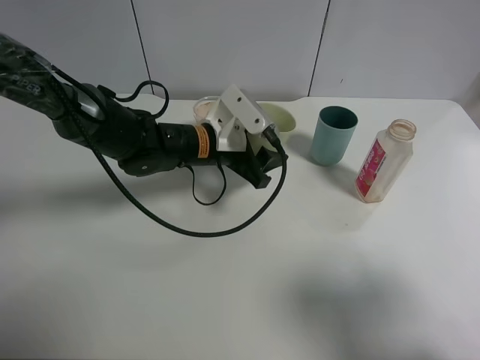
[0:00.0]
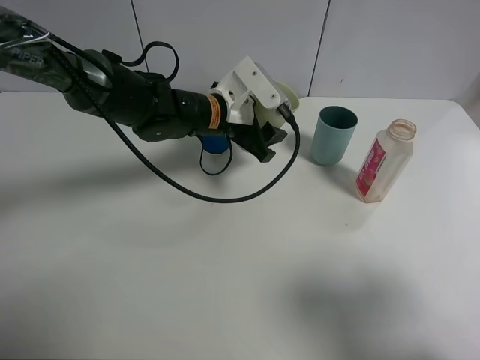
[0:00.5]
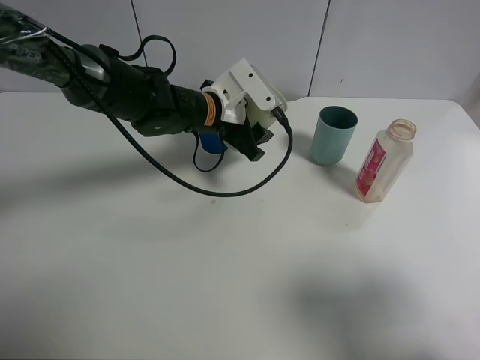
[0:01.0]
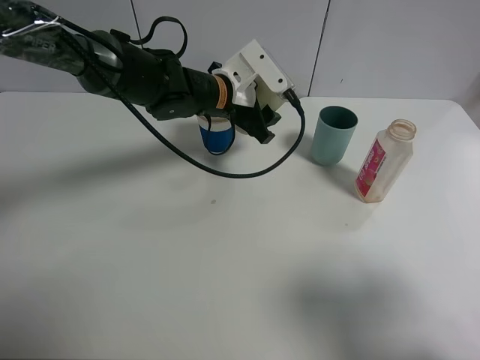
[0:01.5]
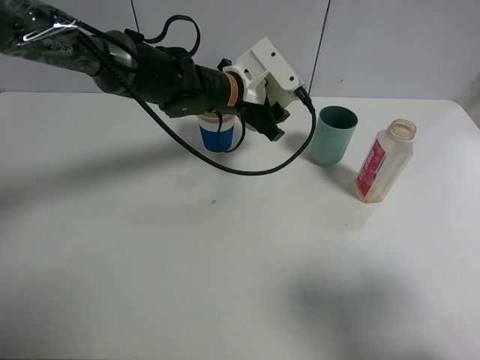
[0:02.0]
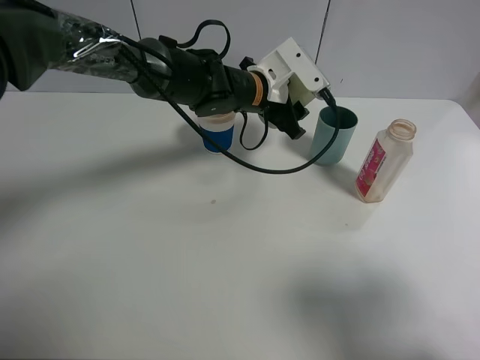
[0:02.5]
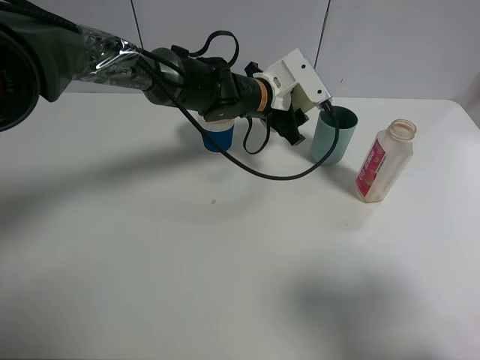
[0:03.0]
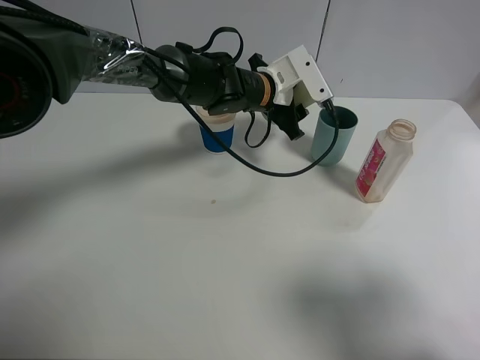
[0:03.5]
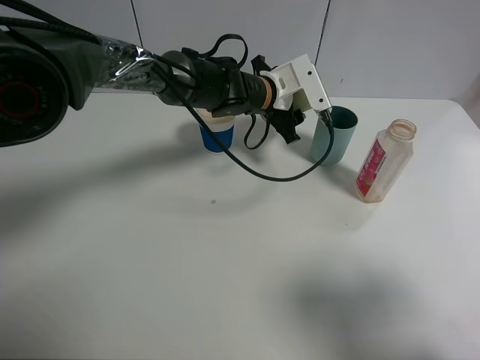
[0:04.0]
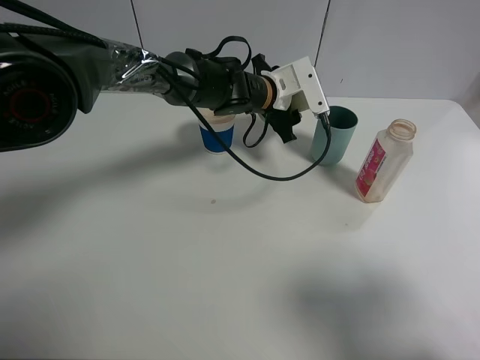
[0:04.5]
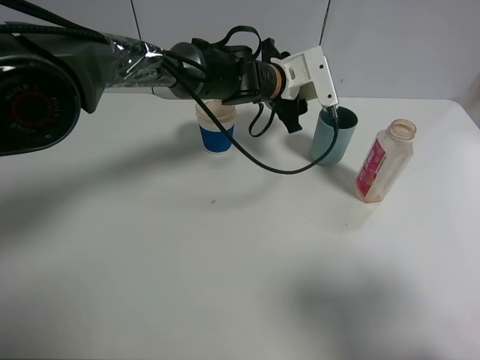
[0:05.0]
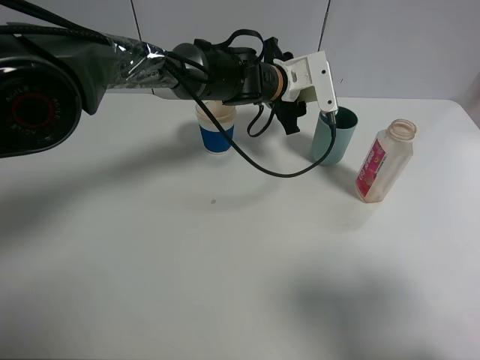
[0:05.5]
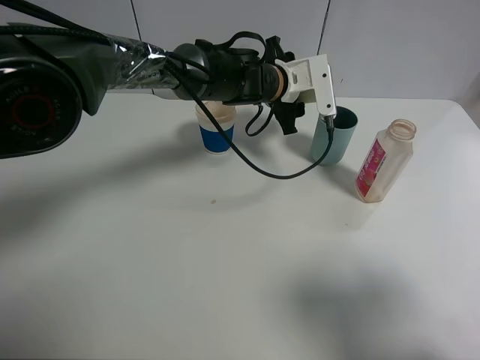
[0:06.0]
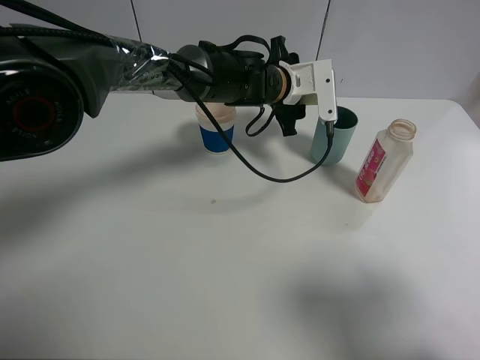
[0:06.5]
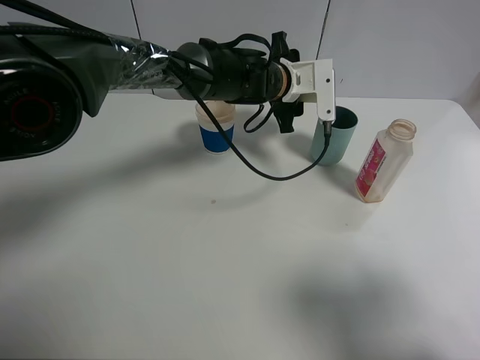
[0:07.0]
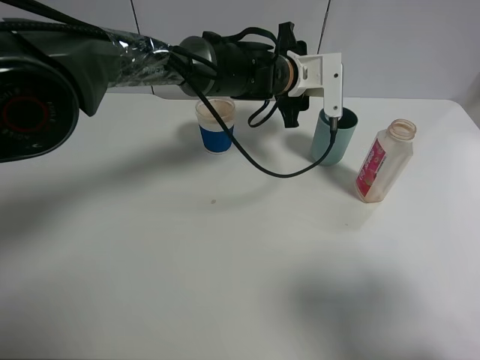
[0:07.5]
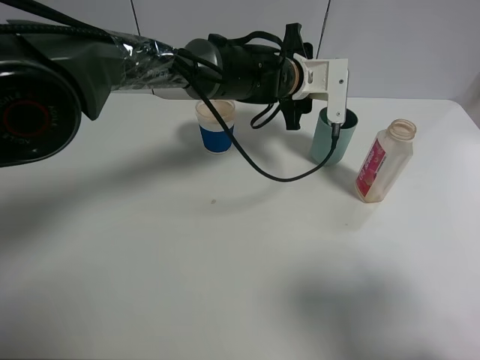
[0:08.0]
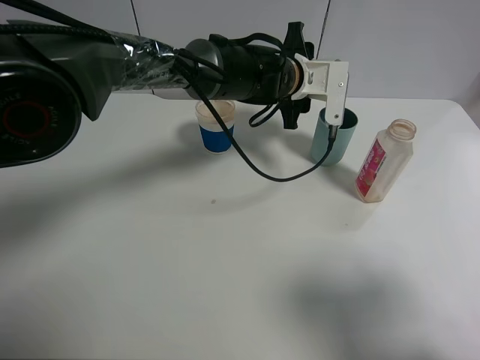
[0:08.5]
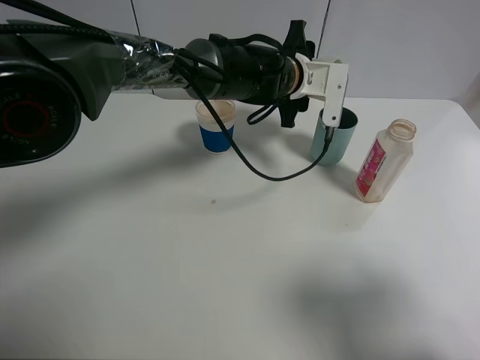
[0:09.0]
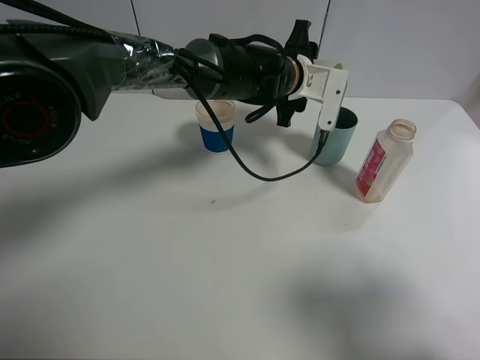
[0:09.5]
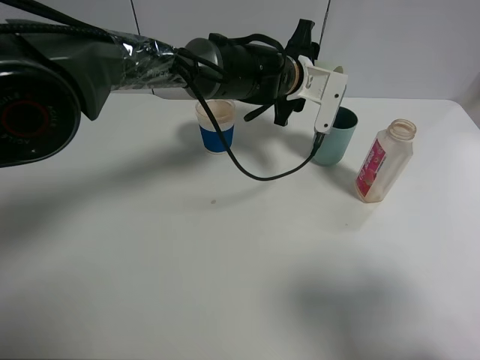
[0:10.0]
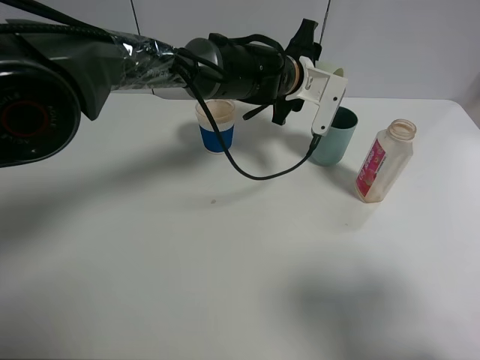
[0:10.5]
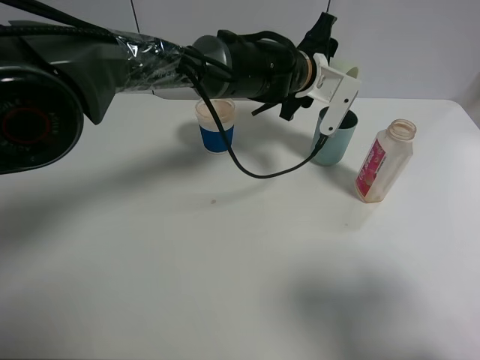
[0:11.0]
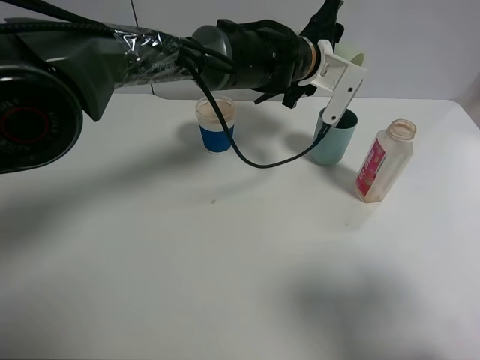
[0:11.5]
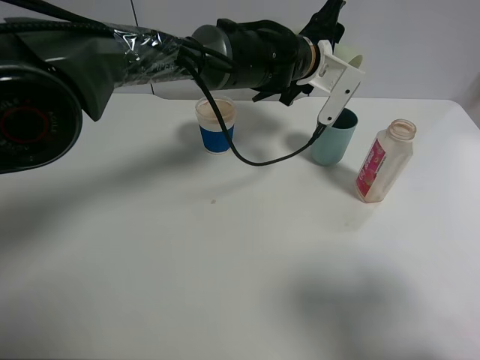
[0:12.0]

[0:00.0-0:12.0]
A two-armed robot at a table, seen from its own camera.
Task of the whole recording: use a clamp to hold the bottle of the drink, pour the beverage into a random cup, then clamp the cup containing the drink and pour the drink into another random cup.
0:00.0 to 0:02.0: The left gripper goes approximately 5 cm forward.
0:02.0 to 0:04.0: The left gripper moves roughly 5 cm.
0:04.0 to 0:06.0: The grippers stay close to where they were, moving slightly.
0:06.0 to 0:08.0: There are only small adjustments of the grippers.
0:08.0 to 0:10.0: There are only small adjustments of the grippers.
0:10.0 to 0:12.0: The grippers make only small movements.

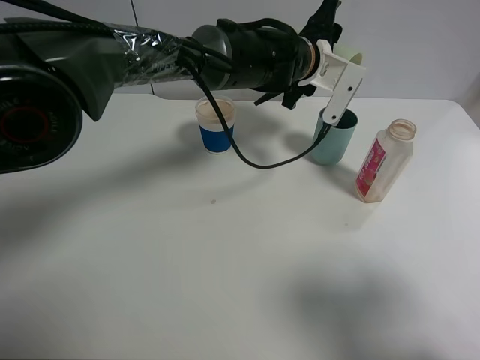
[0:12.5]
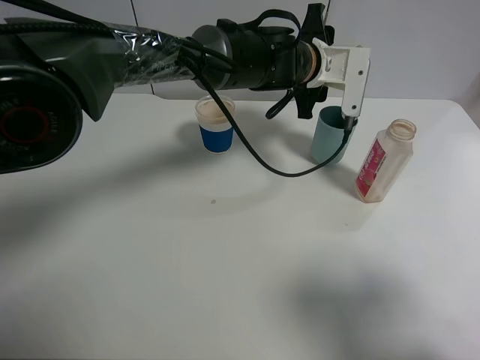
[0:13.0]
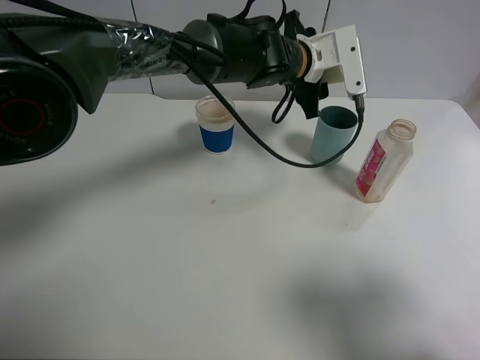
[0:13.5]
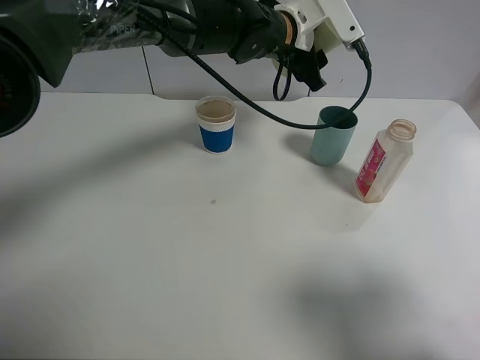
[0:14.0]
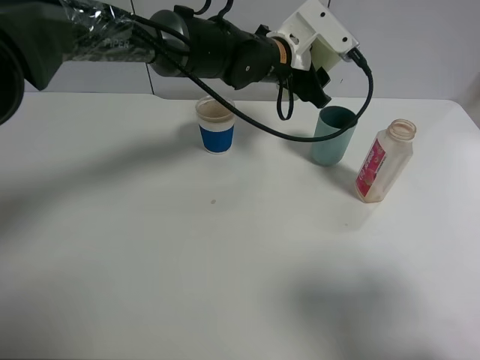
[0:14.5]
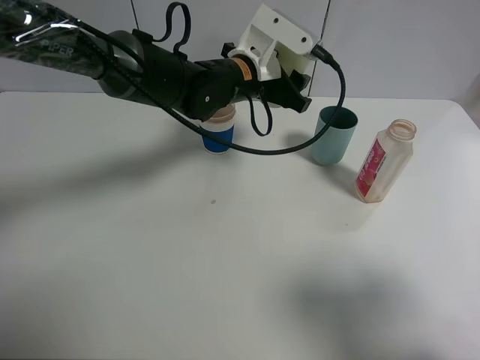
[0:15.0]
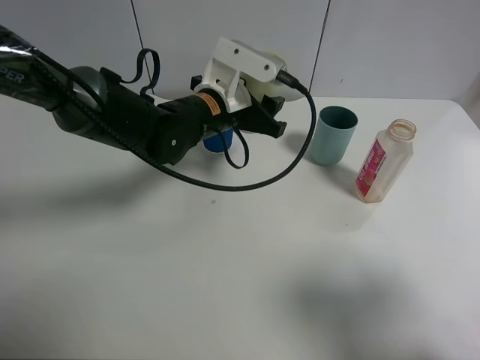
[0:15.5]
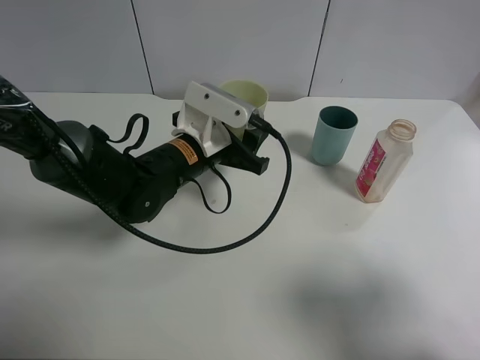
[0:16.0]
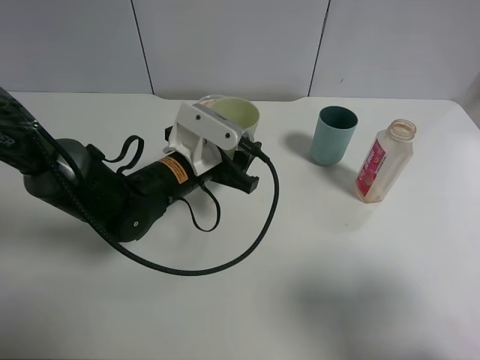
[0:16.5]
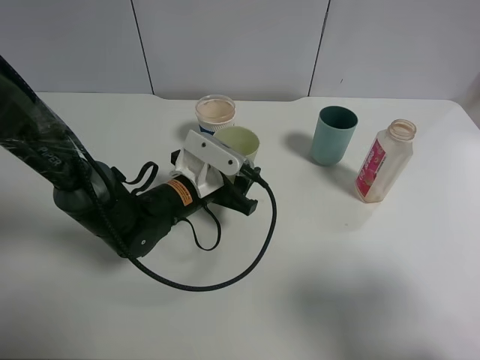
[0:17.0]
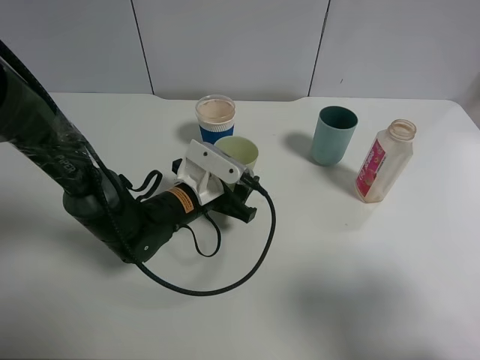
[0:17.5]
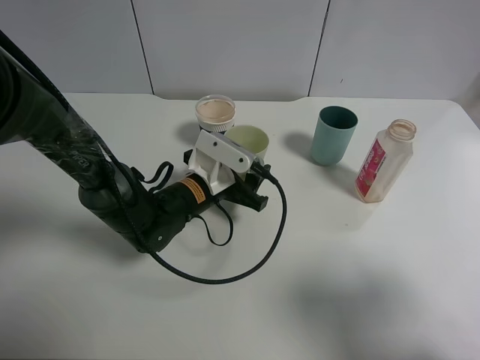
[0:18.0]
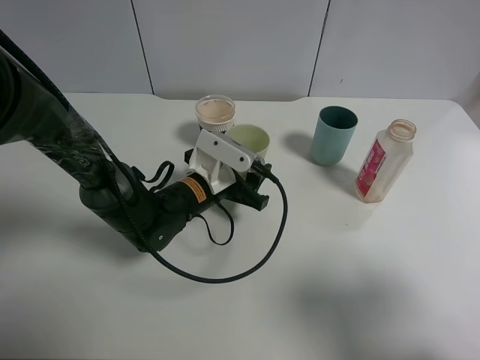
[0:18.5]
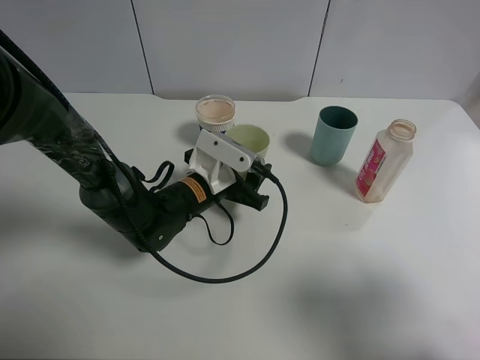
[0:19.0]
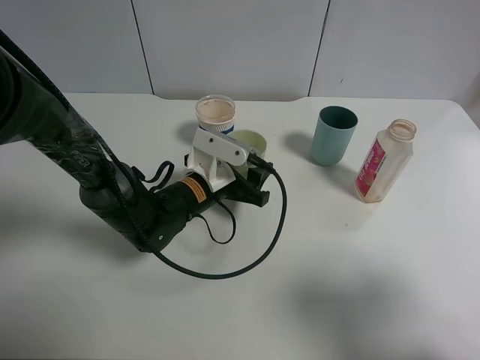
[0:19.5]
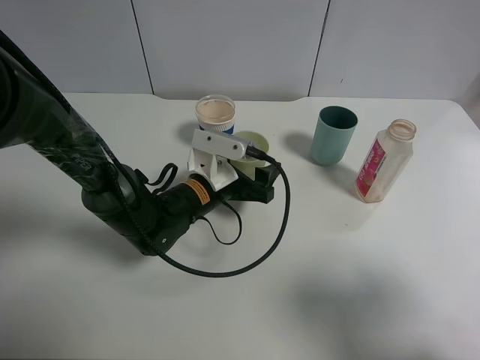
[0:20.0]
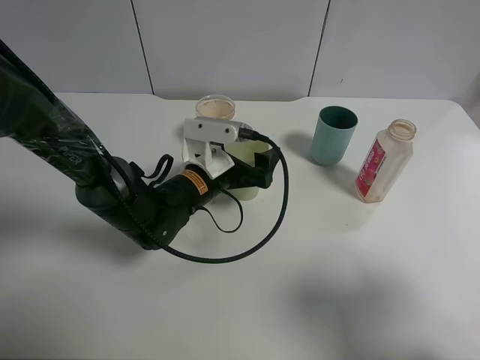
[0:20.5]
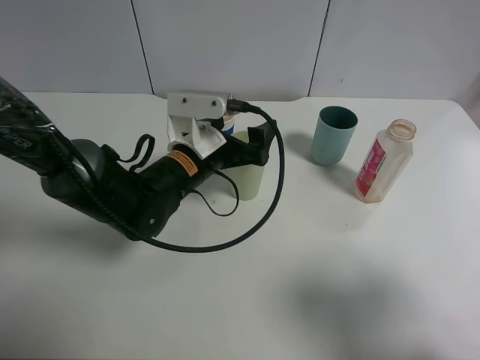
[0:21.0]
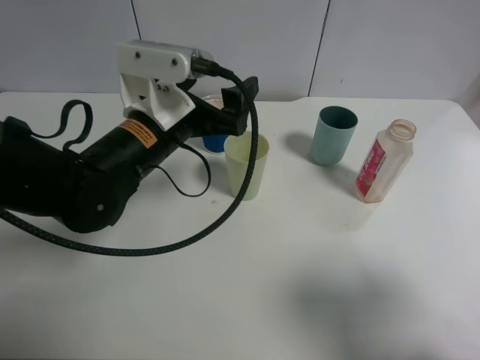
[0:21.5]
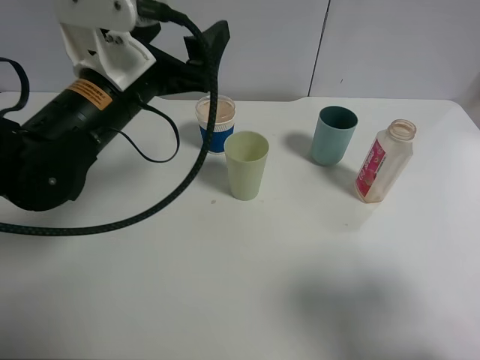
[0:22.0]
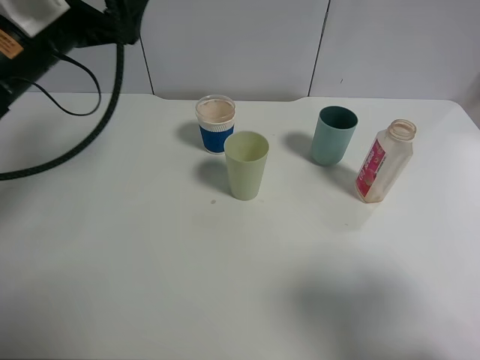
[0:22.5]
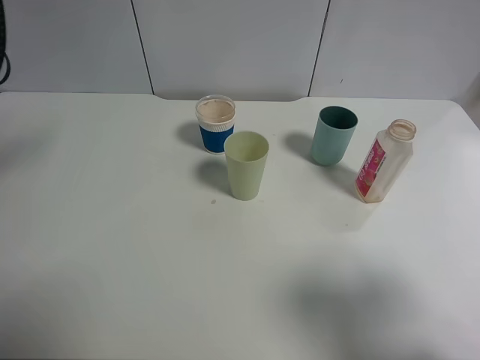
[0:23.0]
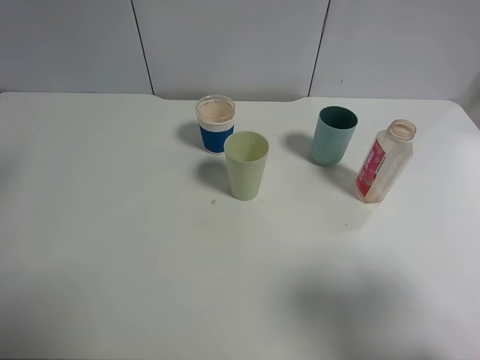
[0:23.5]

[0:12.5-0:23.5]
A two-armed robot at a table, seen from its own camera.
Task of the whole recording: use a clamp to hold the bottle of the drink, pour the beverage into a random cup, then clamp the cup containing the drink and pour the drink into another random cup.
Step, 0:14.0 to 0:20.5: Place the green plastic cup on the table with left gripper.
0:14.5 to 0:16.0: The left gripper is displaced backward, to the left and downward by about 20 cm.
0:16.0 to 0:18.0: The left gripper moves downward, roughly 5 cm.
0:18.0 to 0:20.0: The left gripper opens its fingers.
0:20.0 to 0:21.5: The left gripper shifts some 15 cm upward.
0:21.5 to 0:23.5: The left gripper heads to the left, upward and backward, covering about 25 cm.
